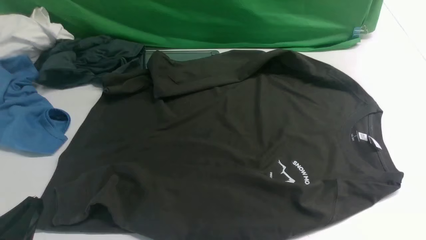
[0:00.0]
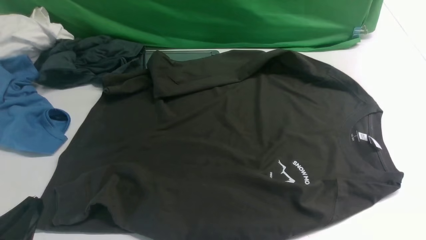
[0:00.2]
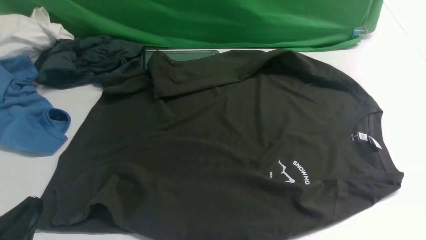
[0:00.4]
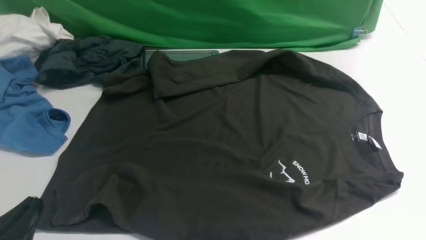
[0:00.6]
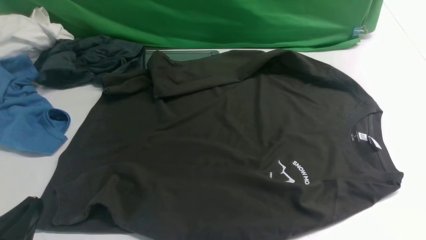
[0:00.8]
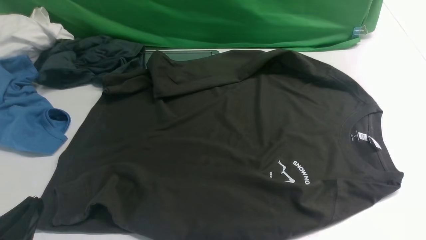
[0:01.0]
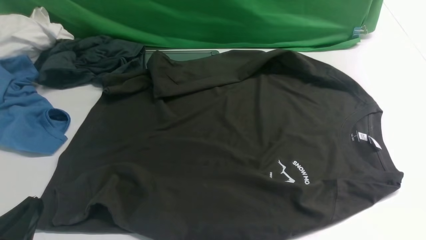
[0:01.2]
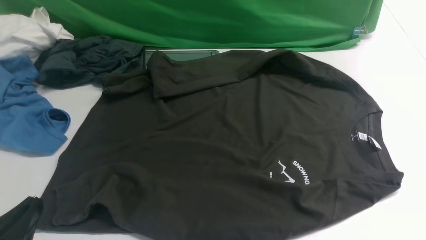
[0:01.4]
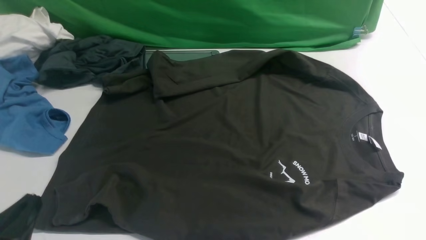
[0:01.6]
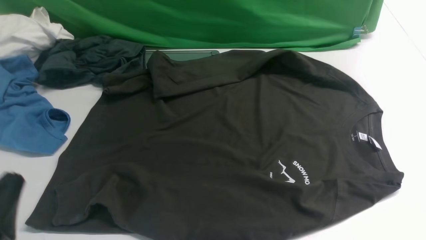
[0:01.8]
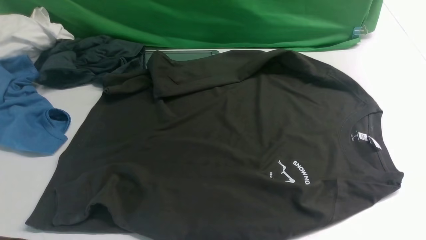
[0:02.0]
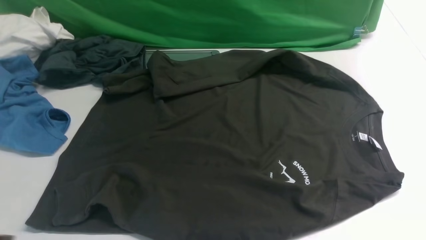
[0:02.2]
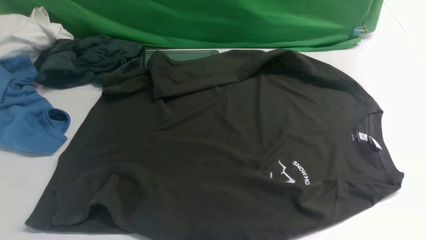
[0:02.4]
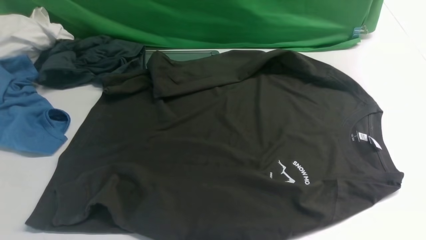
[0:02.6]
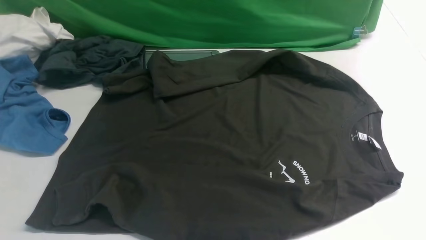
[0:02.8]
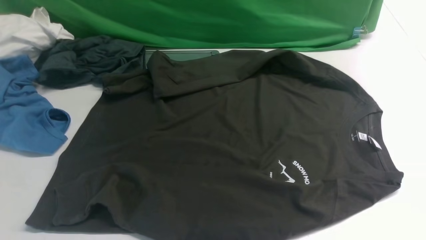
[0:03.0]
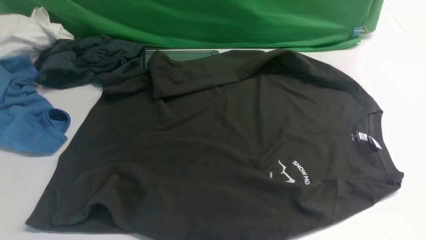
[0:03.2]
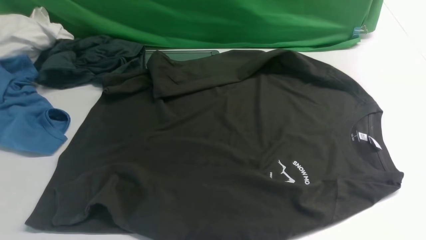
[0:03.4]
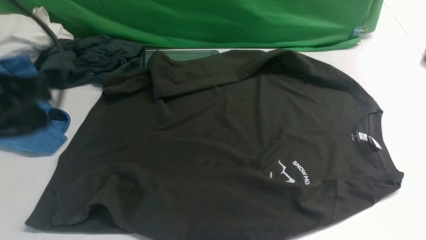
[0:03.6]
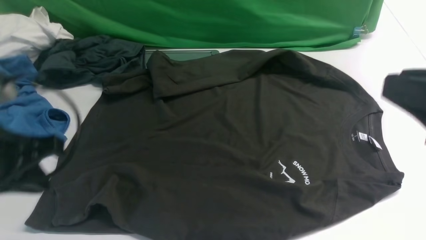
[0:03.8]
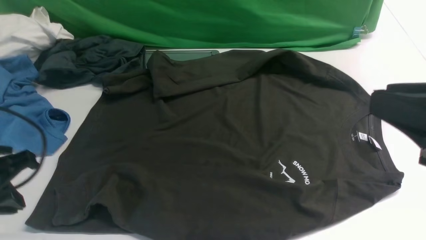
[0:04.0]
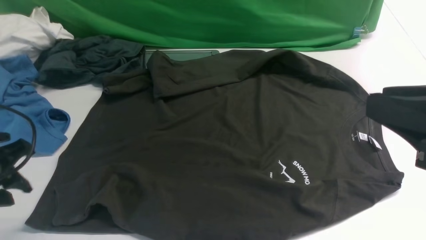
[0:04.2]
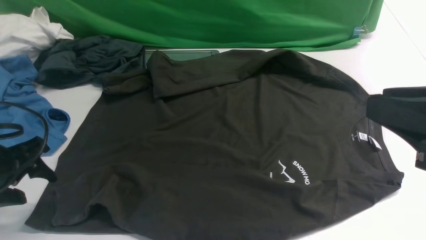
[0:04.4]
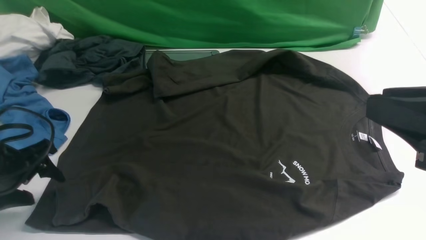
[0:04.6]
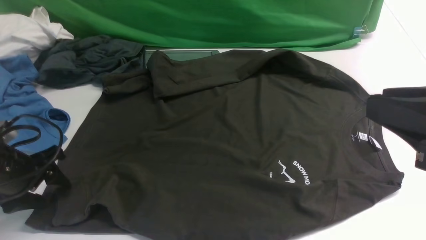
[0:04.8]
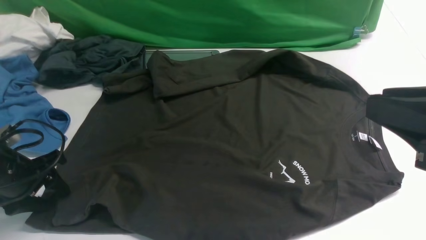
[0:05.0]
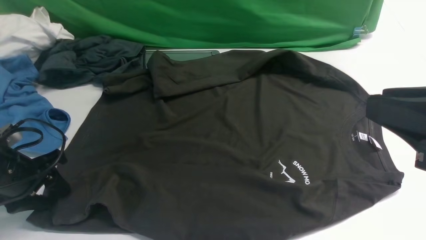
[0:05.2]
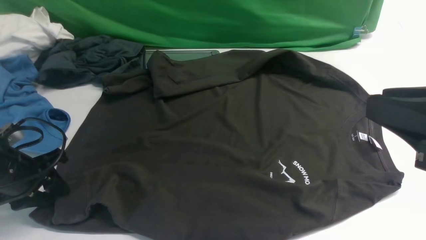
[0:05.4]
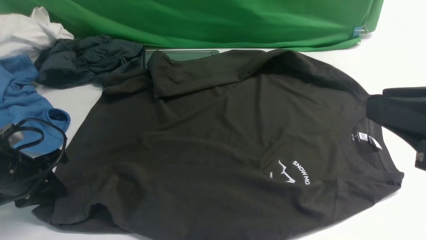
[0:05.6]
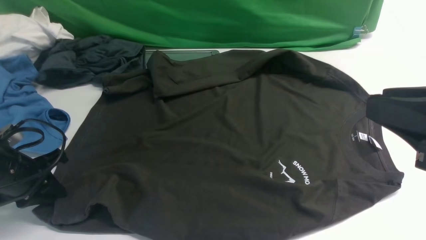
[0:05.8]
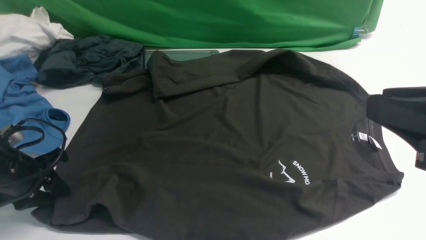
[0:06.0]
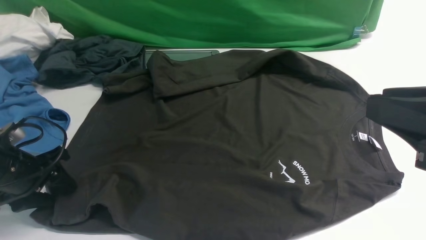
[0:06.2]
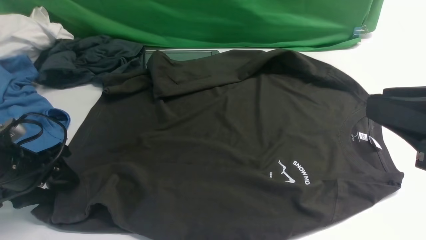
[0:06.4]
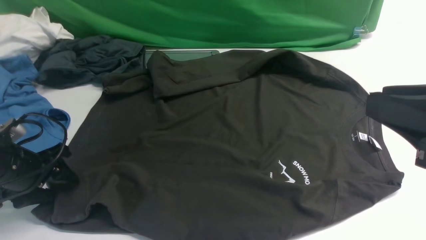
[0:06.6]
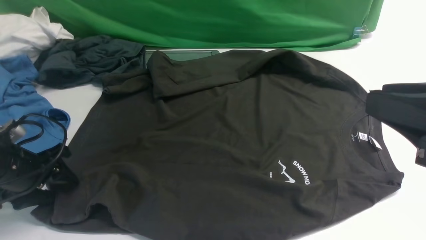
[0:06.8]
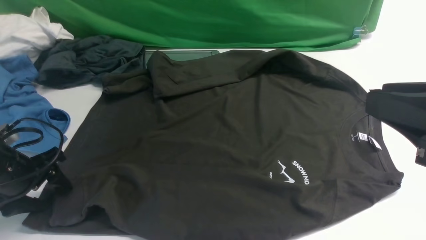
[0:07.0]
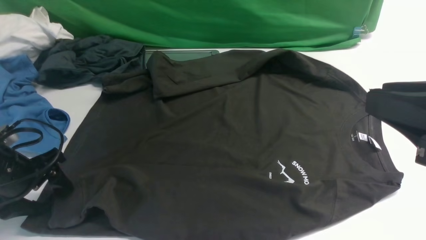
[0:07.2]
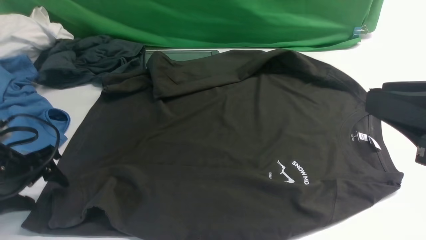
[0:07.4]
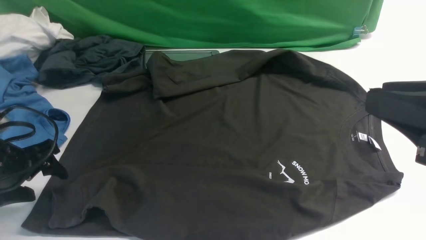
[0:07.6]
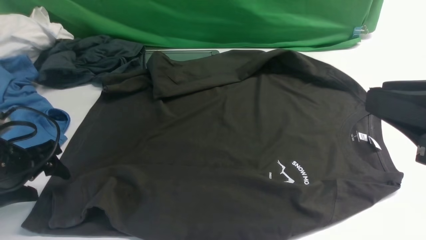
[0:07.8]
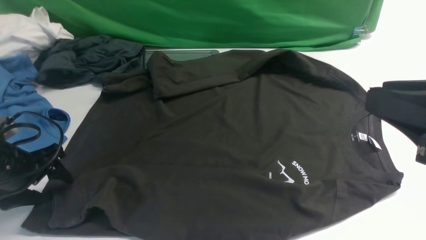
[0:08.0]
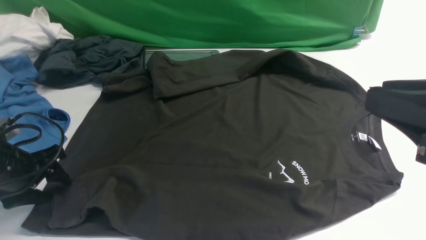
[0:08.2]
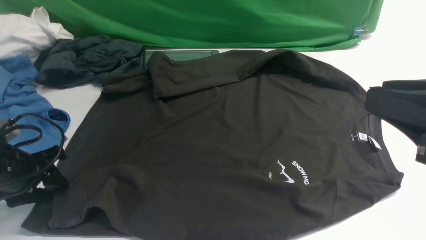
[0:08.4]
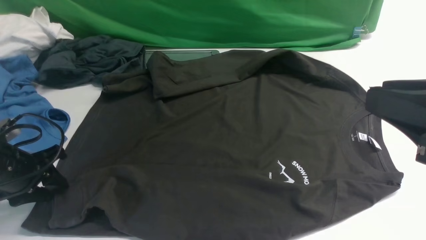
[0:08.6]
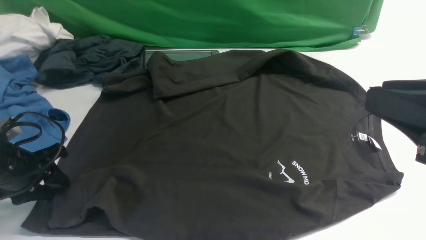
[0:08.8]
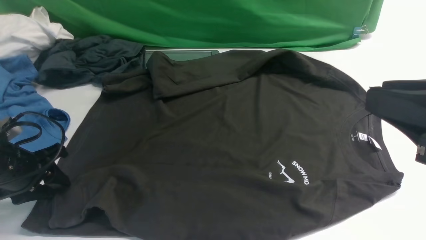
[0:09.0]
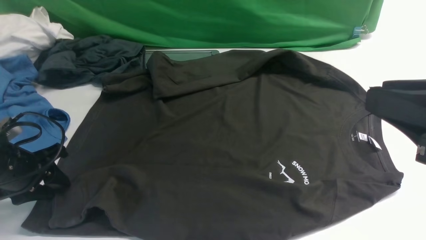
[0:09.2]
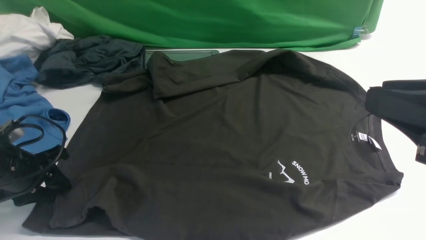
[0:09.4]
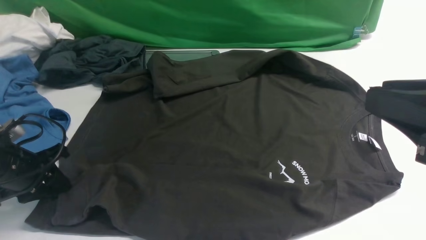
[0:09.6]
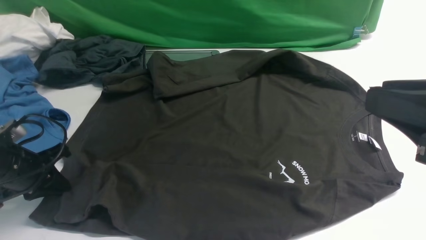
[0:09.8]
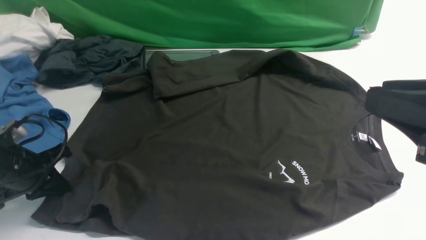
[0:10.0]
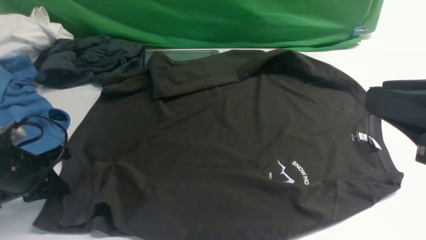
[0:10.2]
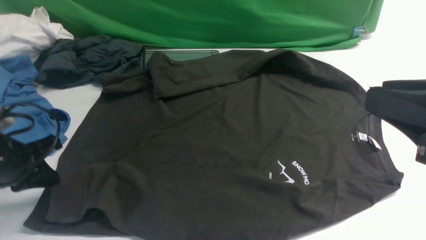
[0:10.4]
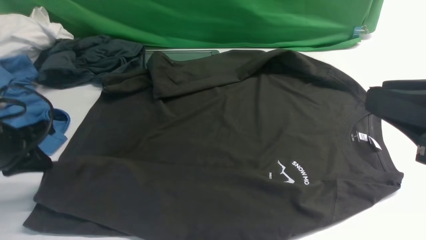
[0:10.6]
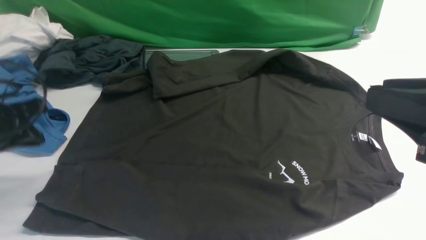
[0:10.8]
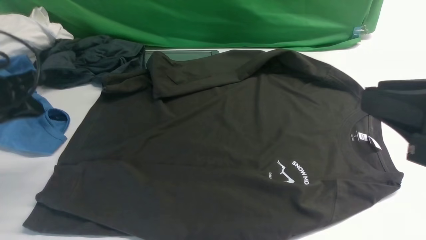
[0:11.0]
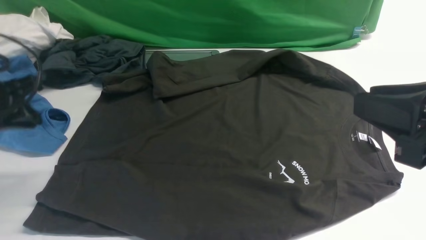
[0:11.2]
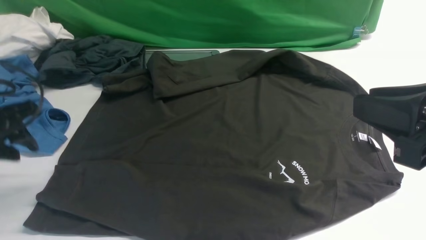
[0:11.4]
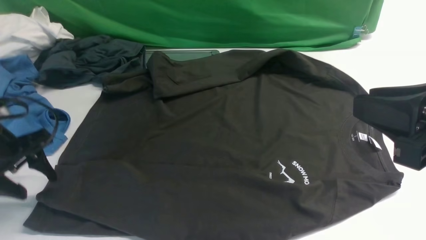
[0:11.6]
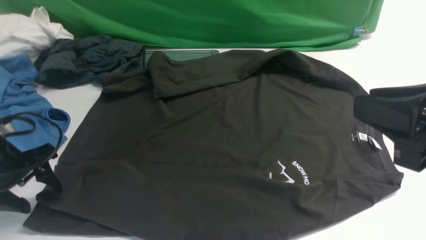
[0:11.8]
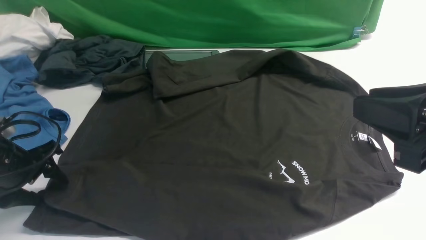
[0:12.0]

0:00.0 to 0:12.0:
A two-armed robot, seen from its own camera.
0:01.6 to 0:03.0: The left gripper is displaced upward by approximately 30 cm.
0:03.0 to 0:04.4: The right gripper travels downward and to the left by approximately 15 cm; the left gripper travels downward and forward by roughly 30 cm, and opens up.
0:04.4 to 0:06.0: The left gripper travels downward by approximately 5 cm.
0:06.0 to 0:07.6: The left gripper opens.
0:07.6 to 0:09.0: The left gripper closes its fingers.
0:09.0 to 0:10.4: The left gripper closes up.
0:10.4 to 0:12.0: The left gripper moves about 5 cm upward and comes back, and opens.

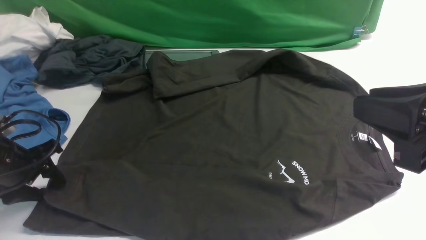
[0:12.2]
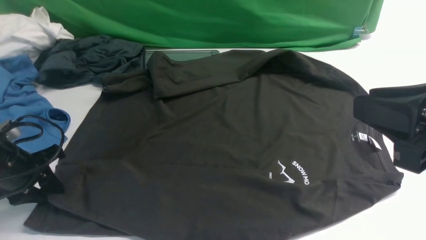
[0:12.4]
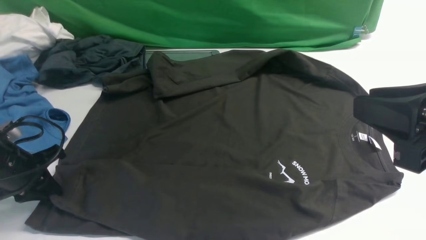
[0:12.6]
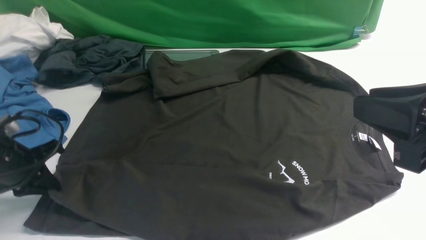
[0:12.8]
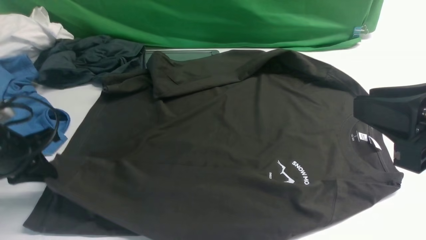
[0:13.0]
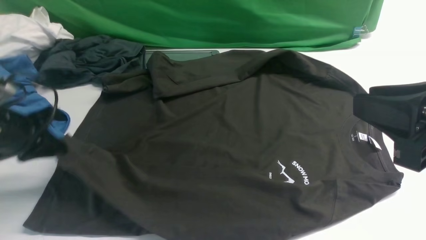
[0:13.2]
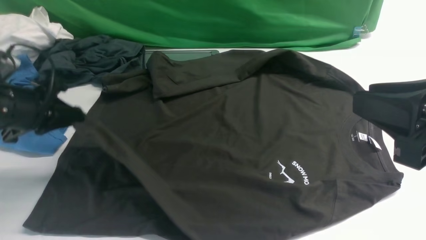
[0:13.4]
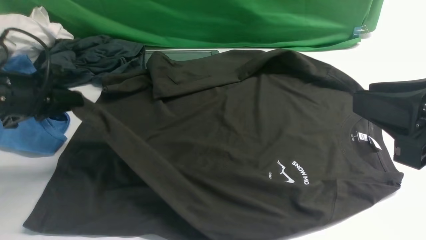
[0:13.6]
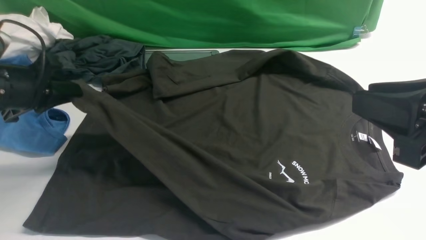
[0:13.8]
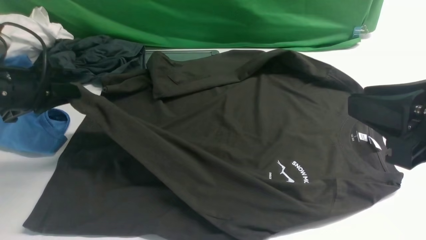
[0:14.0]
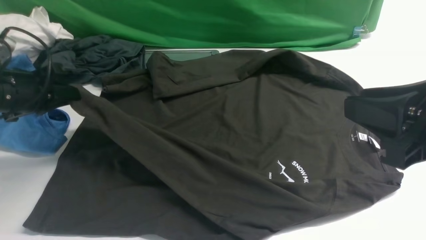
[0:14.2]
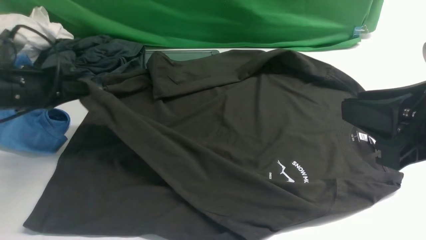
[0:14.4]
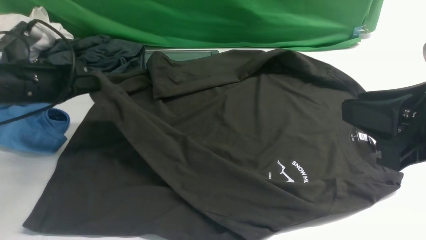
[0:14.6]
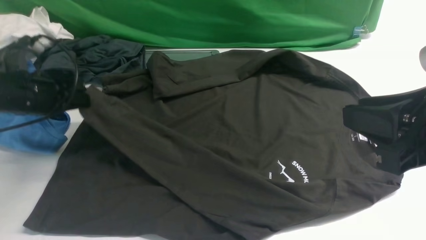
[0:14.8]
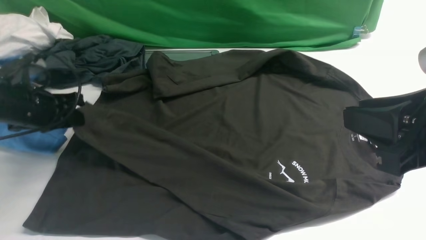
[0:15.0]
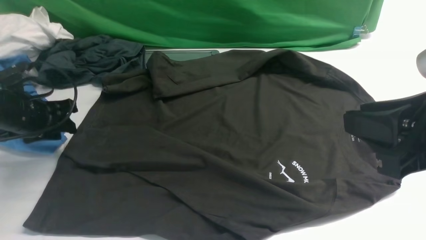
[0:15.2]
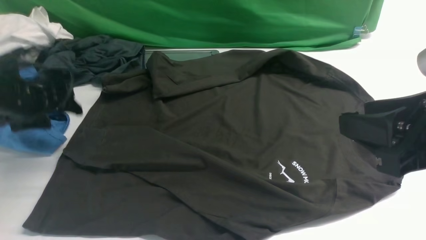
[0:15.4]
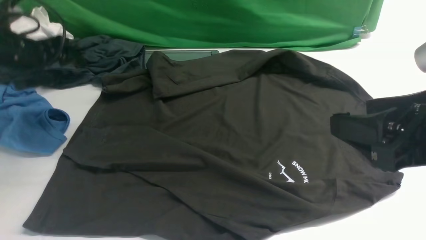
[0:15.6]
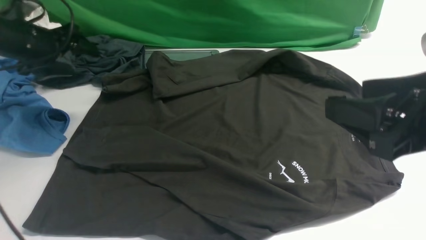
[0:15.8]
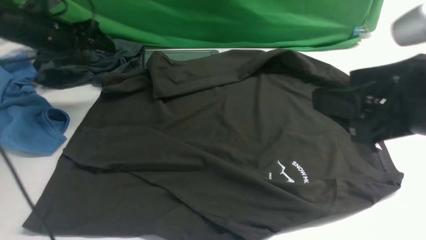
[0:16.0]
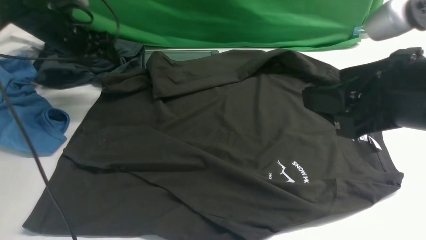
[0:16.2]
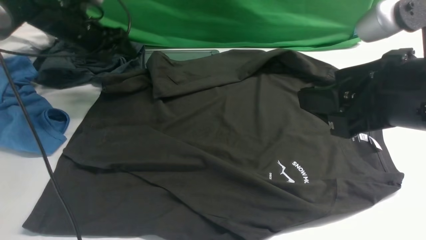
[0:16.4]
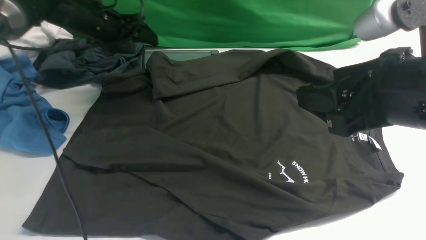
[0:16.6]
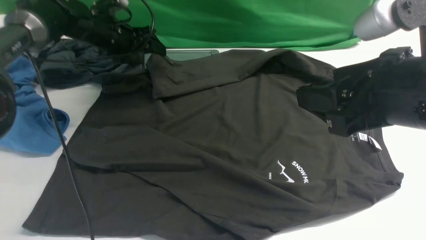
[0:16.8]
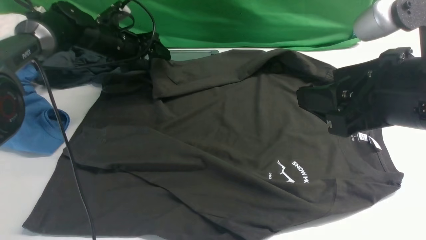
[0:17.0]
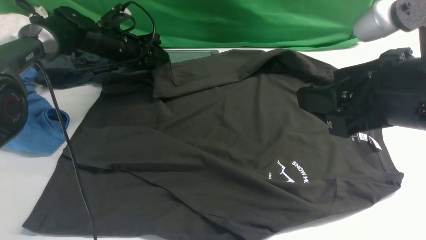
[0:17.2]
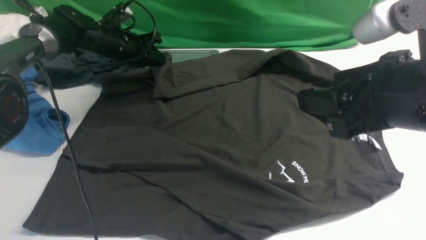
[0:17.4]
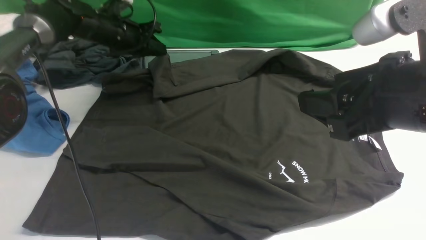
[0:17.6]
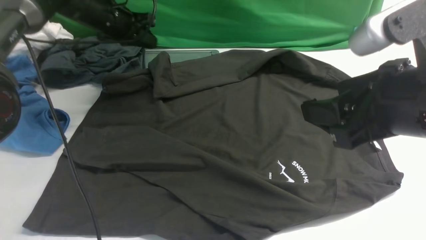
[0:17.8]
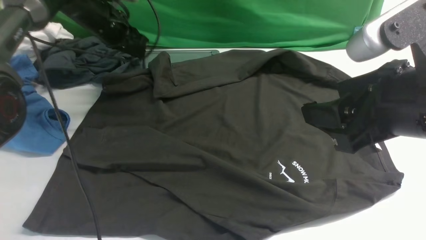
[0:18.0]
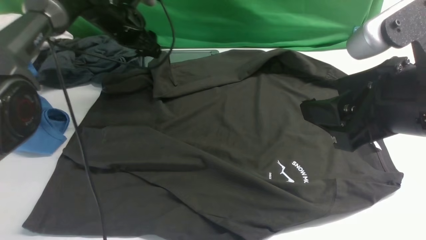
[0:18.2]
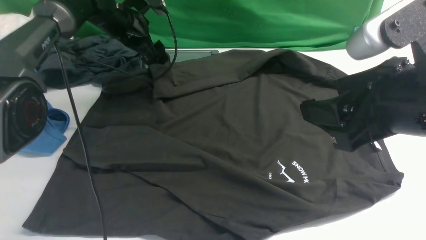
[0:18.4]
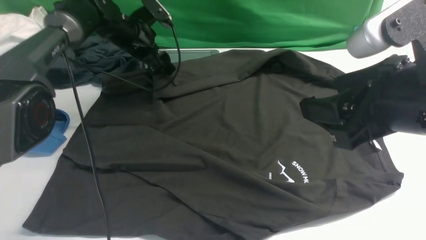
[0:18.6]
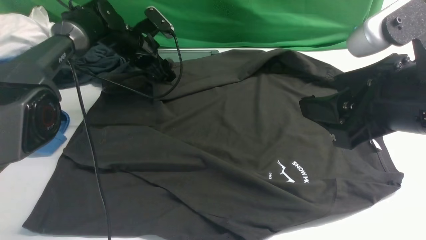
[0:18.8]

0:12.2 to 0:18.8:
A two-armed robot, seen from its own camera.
Step, 0:13.0 to 0:15.4: use the left arm to drag and place the cuff at the centered position on the left edge of the fabric.
0:12.2 to 0:13.8: The left gripper moves upward, roughly 10 cm, and closes up.
0:13.8 to 0:15.4: The left gripper ends up some 5 cm from where it was, and opens.
0:15.4 to 0:17.2: The left gripper travels forward and to the right by about 20 cm, and closes up.
0:17.2 to 0:18.8: The left gripper closes, then opens again.
